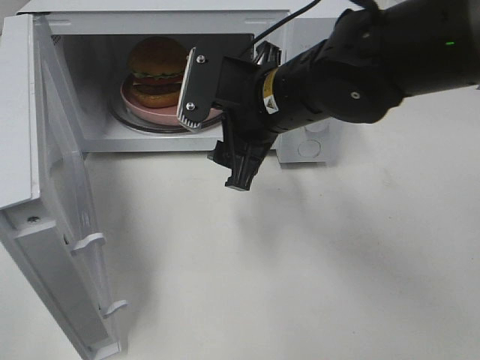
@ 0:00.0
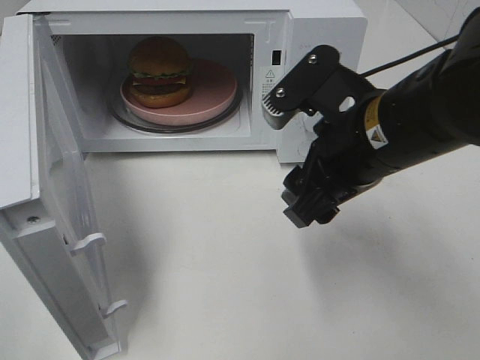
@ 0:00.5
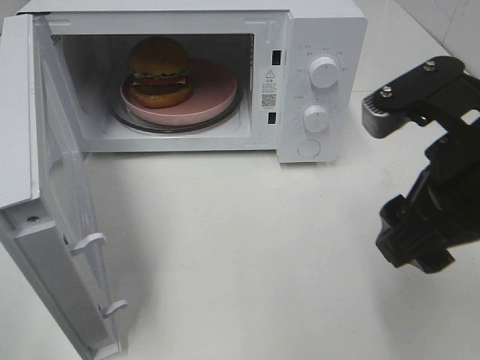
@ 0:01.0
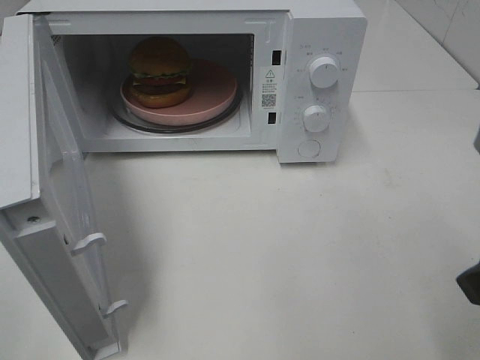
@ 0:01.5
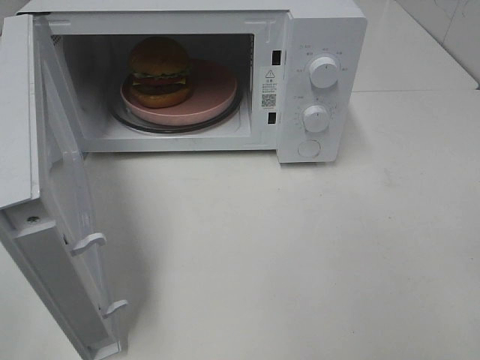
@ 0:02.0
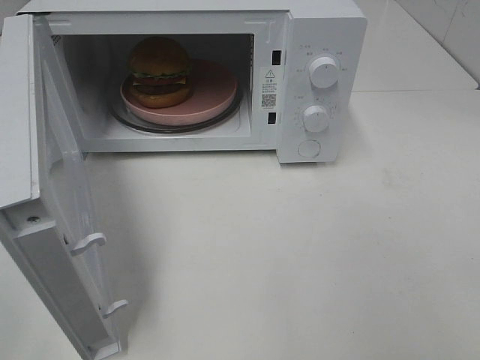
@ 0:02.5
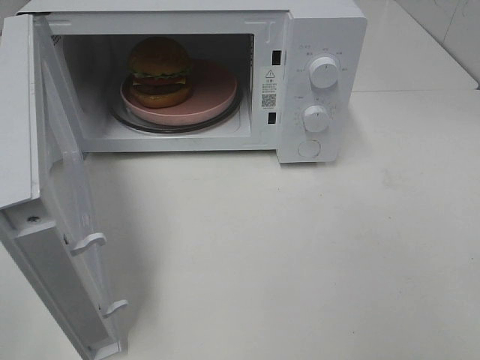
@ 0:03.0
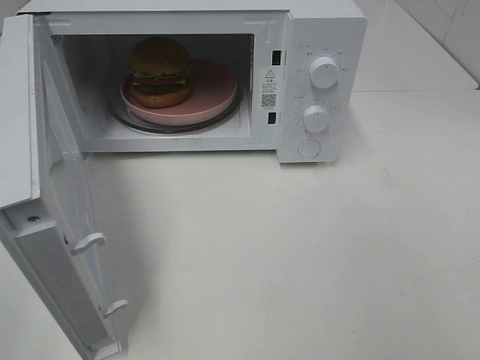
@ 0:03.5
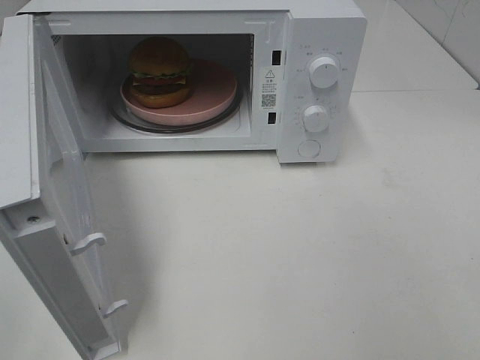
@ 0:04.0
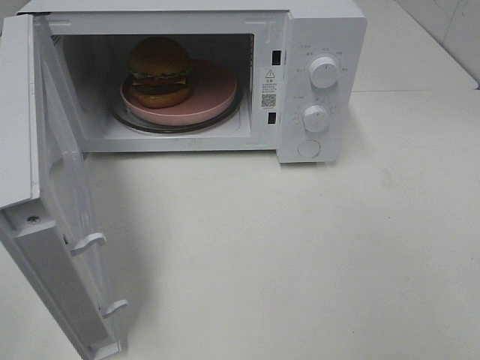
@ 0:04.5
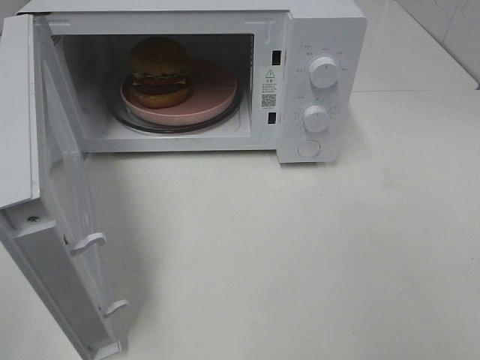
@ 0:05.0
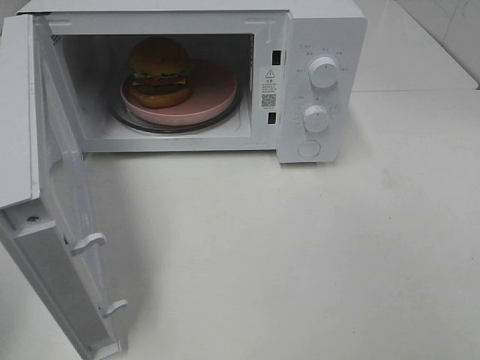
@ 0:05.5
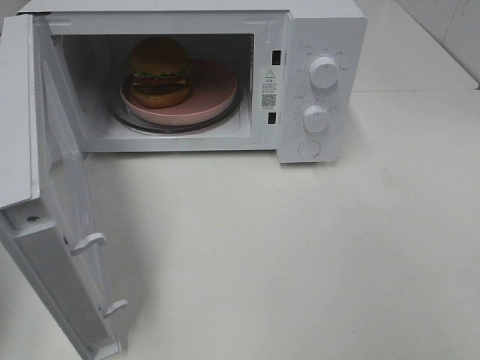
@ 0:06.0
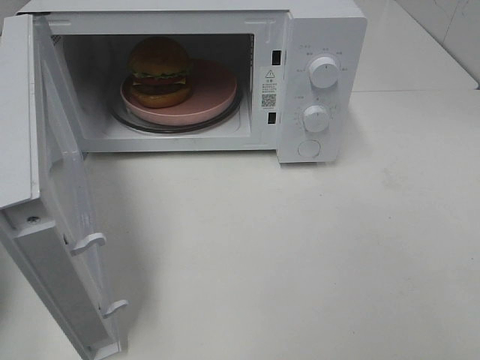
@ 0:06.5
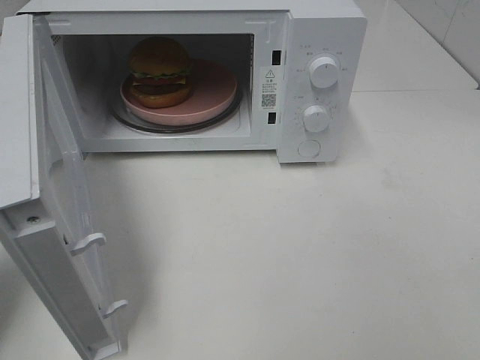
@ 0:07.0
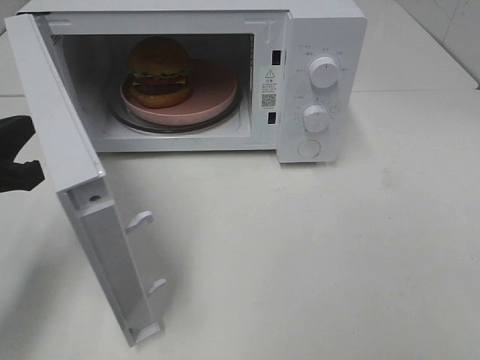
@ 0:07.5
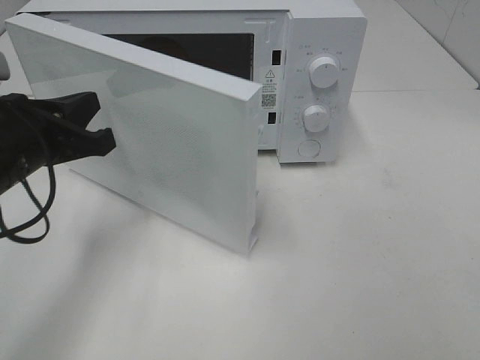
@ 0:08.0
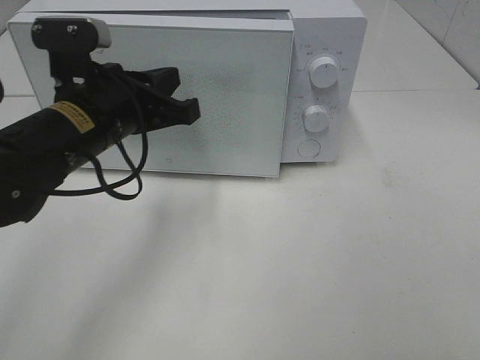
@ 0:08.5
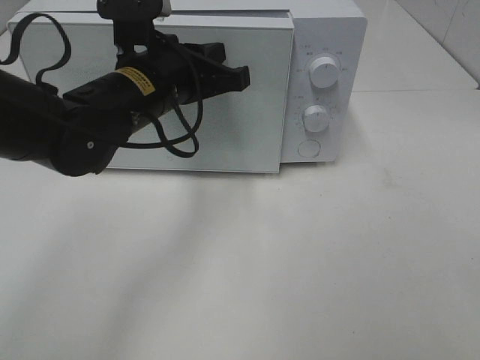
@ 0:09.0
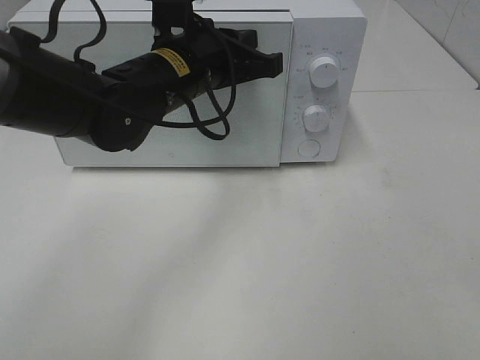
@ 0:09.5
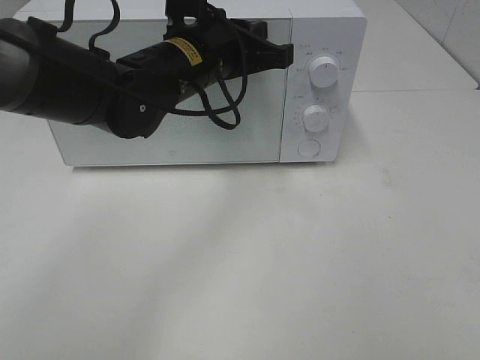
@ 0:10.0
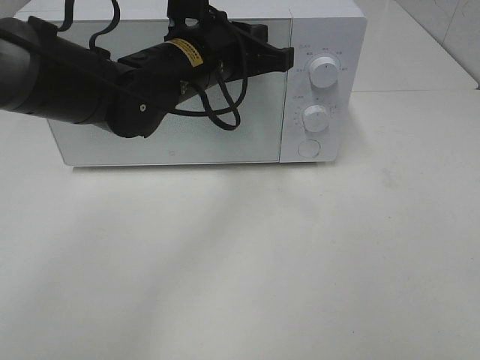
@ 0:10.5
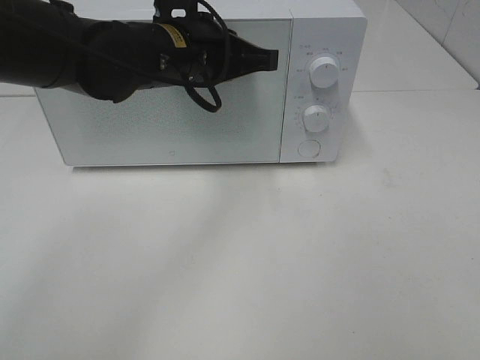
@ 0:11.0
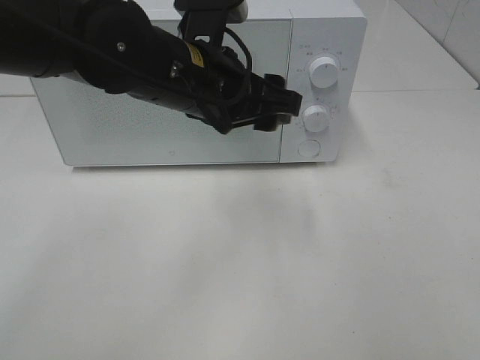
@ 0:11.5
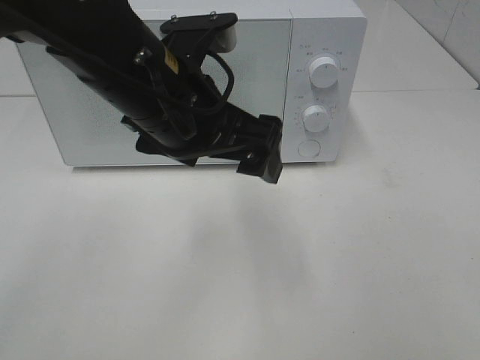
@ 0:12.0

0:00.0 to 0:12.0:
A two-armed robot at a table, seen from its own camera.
Task of the whole recording: Heat the burger.
Step, 0:00.0 to 0:11.0: Left hand: close the microwave door.
0:00.0 to 0:02.0: The right gripper is displaced to the right and backward by some 30 cm.
0:06.0 to 0:08.0: The left gripper moves to the right, forward and downward, approximately 20 cm.
0:08.0 to 0:10.0: The left gripper travels to the right and forward by some 20 cm.
0:10.0 to 0:12.0: The left gripper moves backward, some 10 cm, and opens.

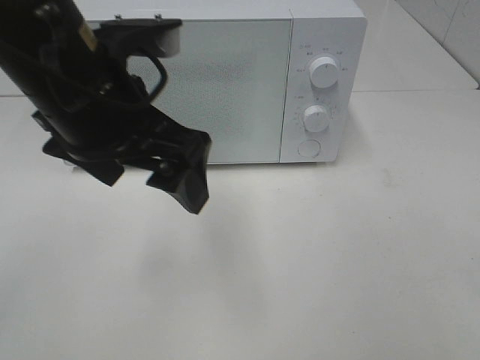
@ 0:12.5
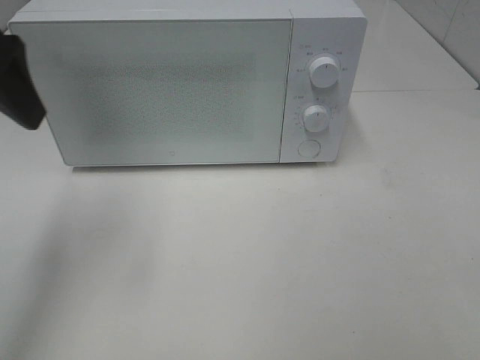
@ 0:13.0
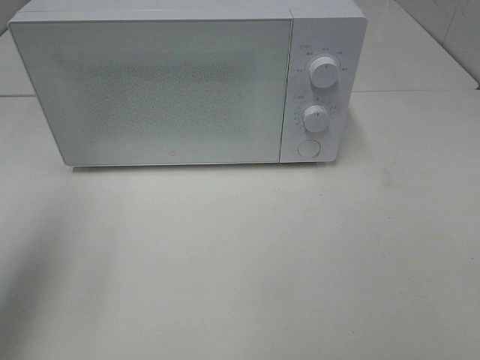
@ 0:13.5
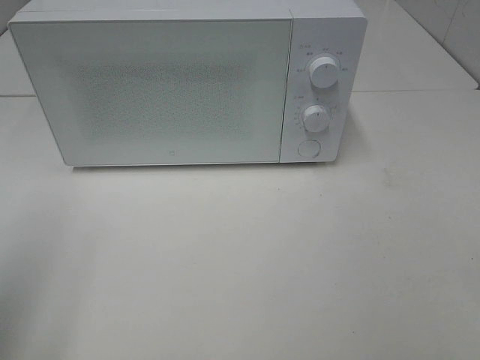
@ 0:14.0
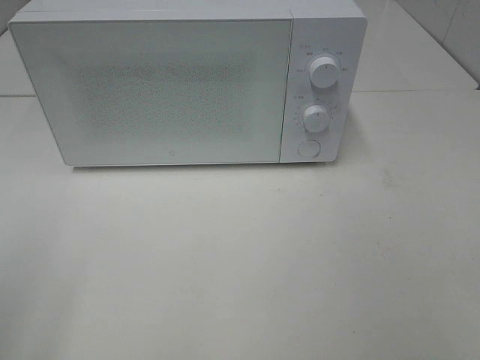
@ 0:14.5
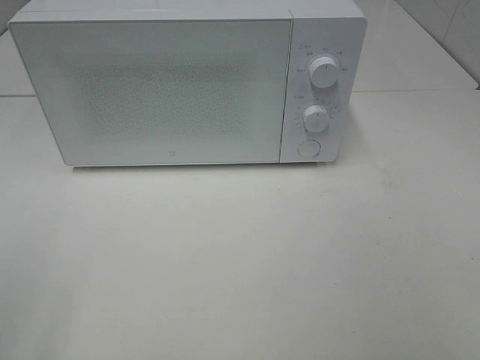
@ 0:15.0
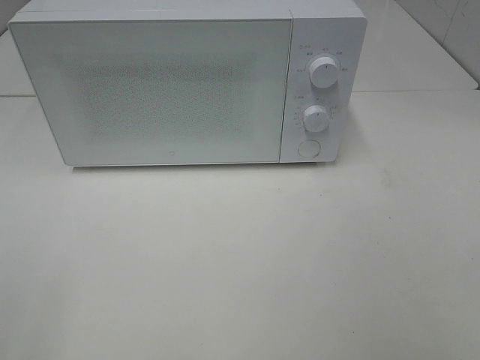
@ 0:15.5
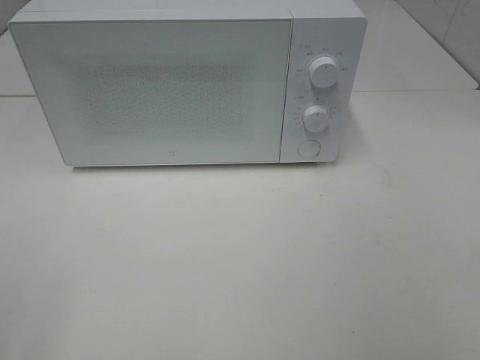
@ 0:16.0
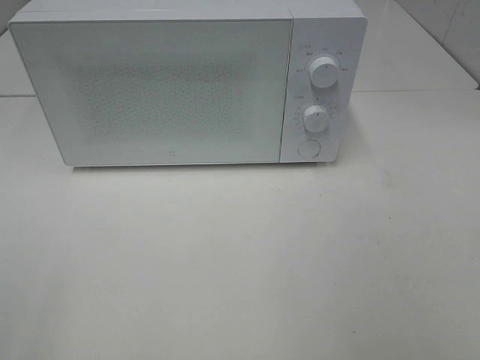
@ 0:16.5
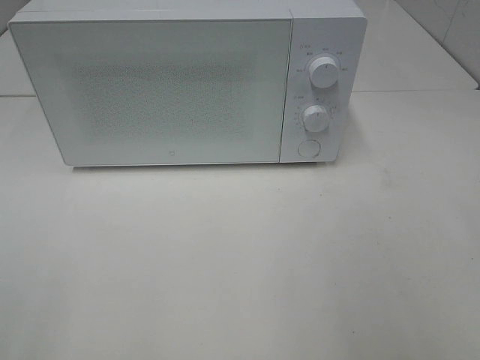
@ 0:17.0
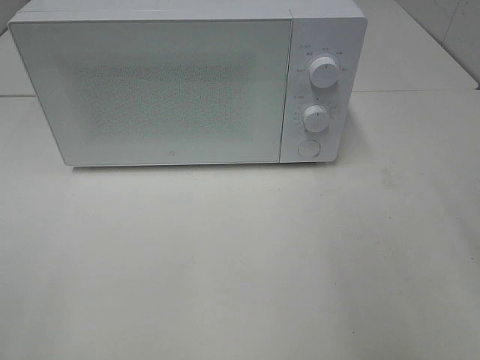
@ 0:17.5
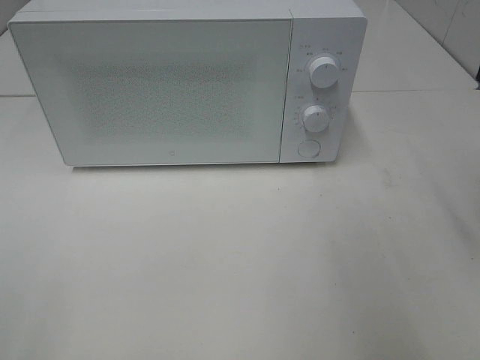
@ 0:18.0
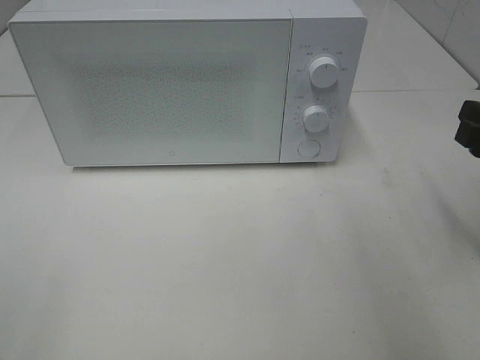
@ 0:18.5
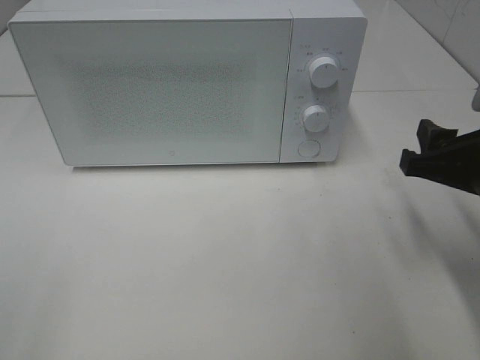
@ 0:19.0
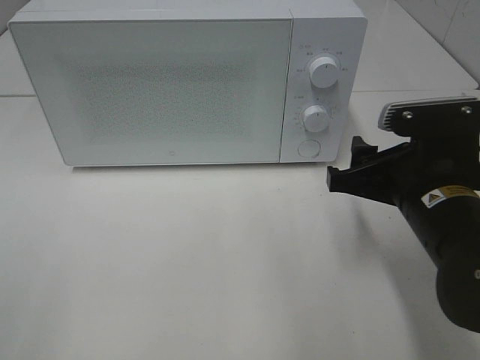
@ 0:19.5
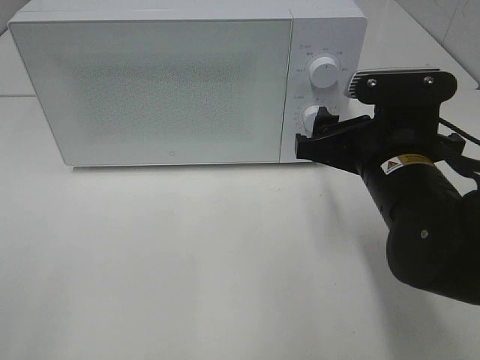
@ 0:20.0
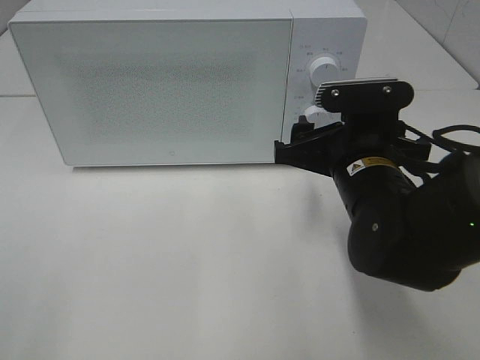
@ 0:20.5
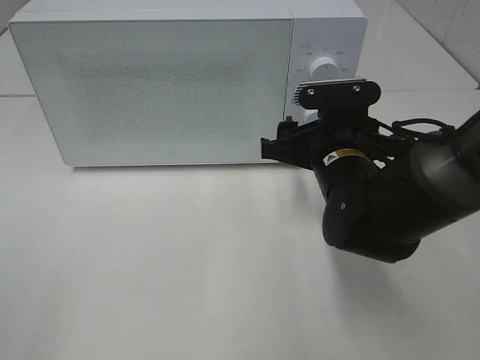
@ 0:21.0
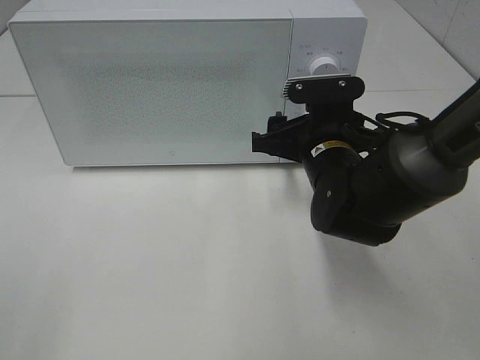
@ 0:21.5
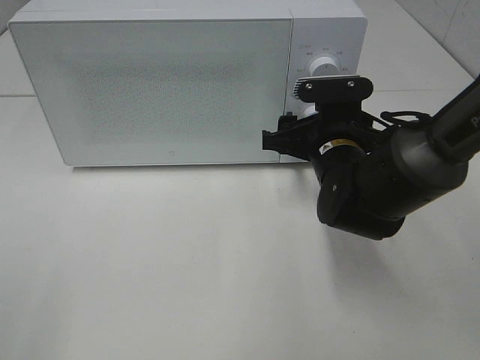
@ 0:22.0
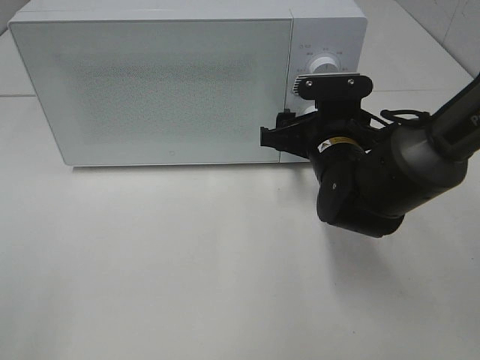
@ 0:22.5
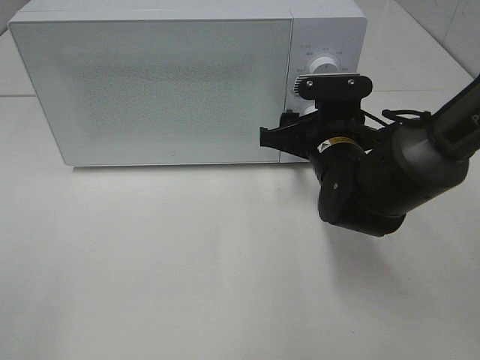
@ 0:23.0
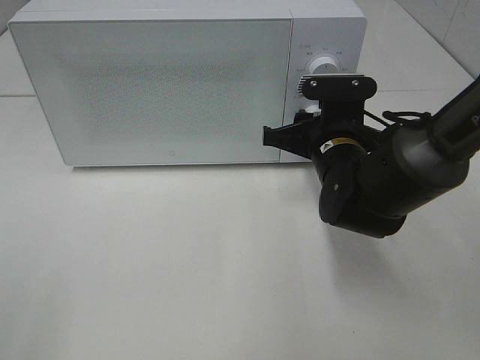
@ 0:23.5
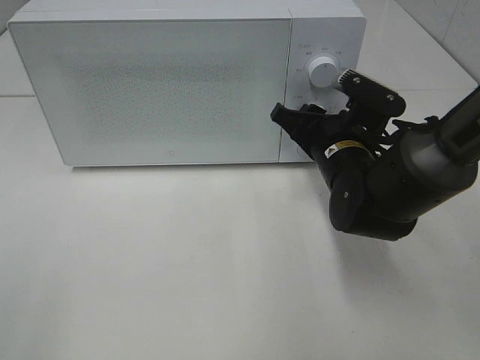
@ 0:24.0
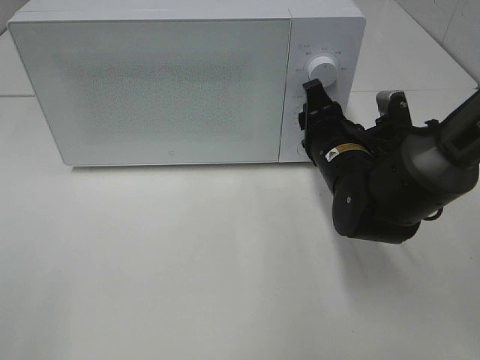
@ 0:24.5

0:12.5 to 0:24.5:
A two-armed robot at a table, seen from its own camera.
Task of the whole recording: Heat the burger.
0:12.5 to 0:14.5: The left gripper moves to the left and backward, roughly 25 cm.
0:16.5 to 0:18.5: The right gripper travels forward and downward by roughly 20 cm.
0:18.5 to 0:20.5: The right gripper goes roughly 15 cm to the left.
0:20.5 to 0:22.5: The right gripper is displaced forward by approximately 5 cm.

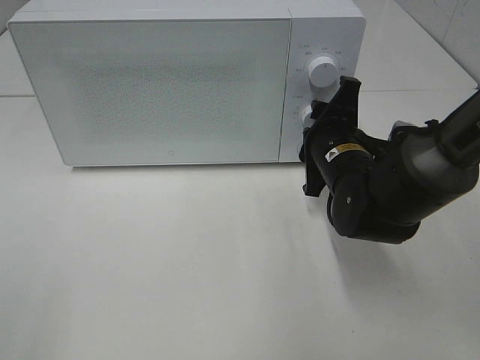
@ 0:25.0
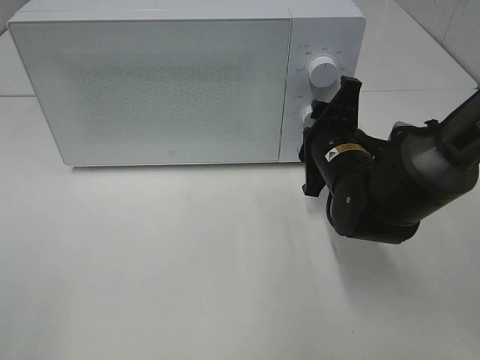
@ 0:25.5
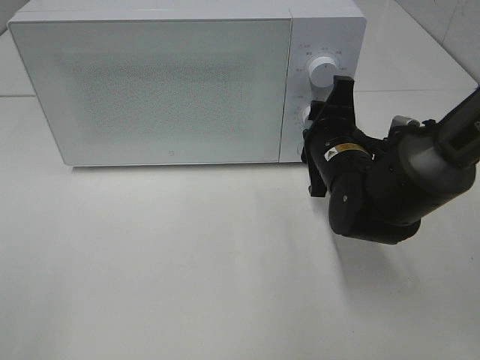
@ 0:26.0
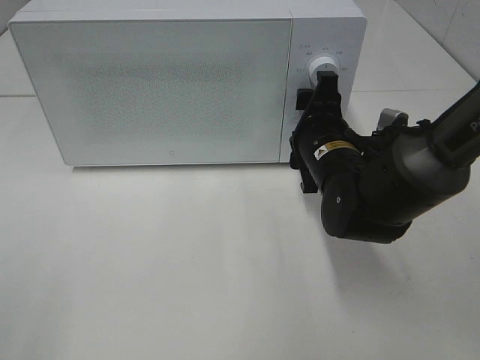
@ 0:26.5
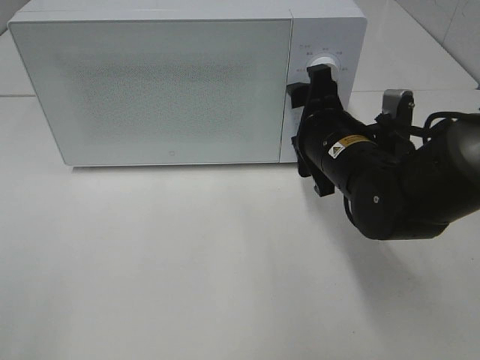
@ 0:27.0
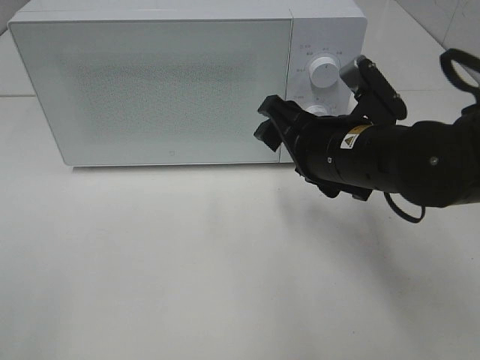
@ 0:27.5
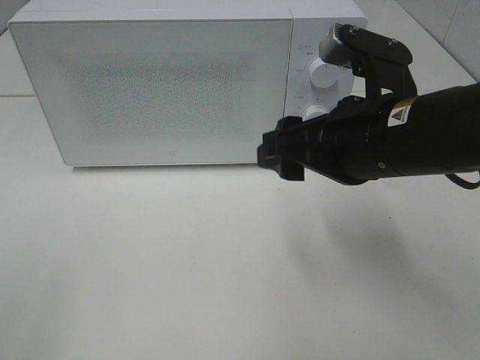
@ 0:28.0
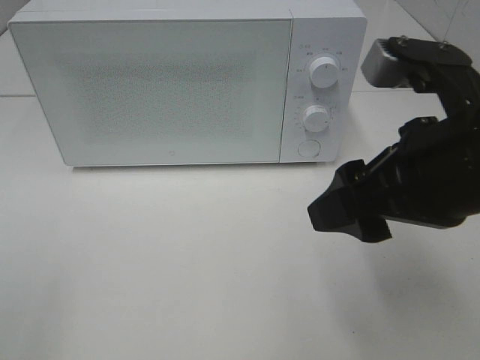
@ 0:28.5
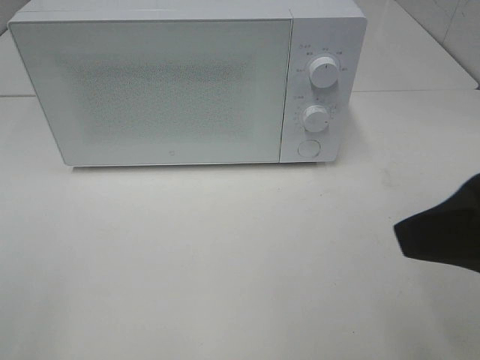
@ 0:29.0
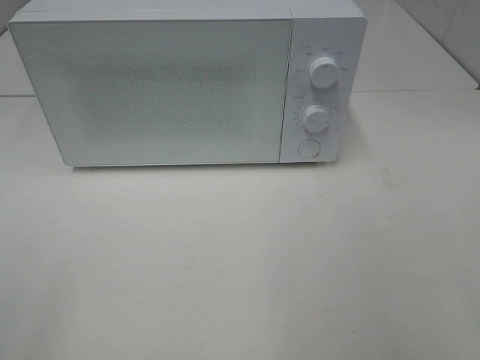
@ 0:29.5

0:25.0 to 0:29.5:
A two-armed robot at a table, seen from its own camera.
Task of the whole recording: Heat the burger.
0:27.0 to 0:29.5: The right gripper is displaced backward, upward and to the right by some 35 cm.
